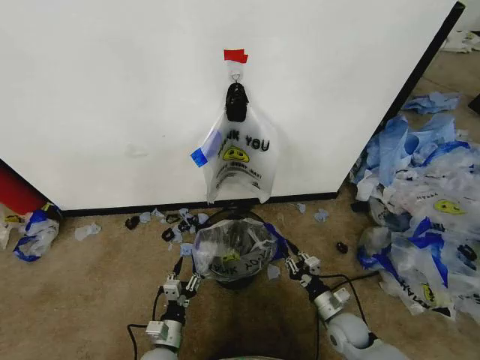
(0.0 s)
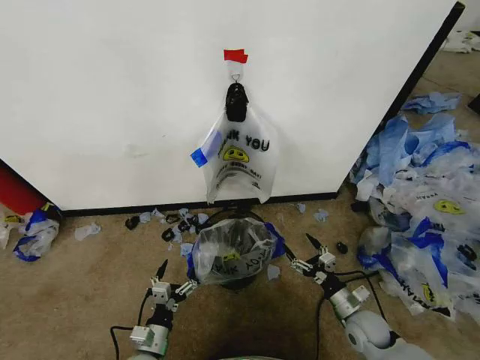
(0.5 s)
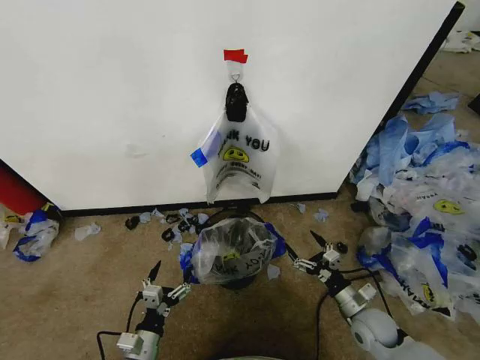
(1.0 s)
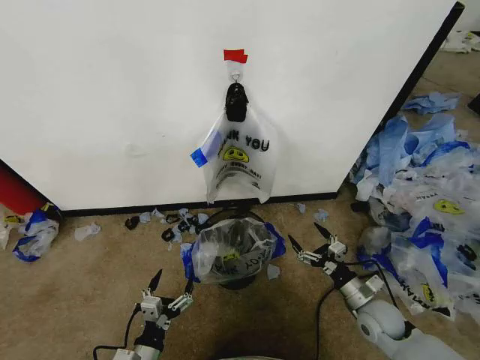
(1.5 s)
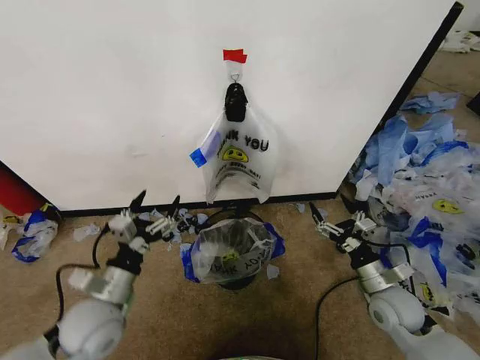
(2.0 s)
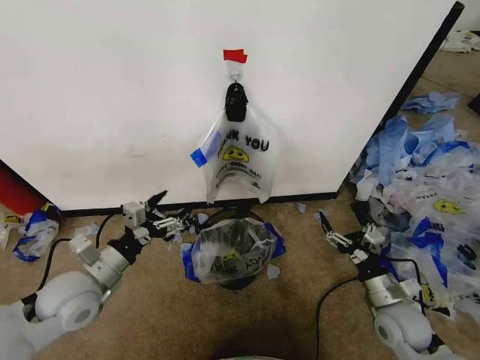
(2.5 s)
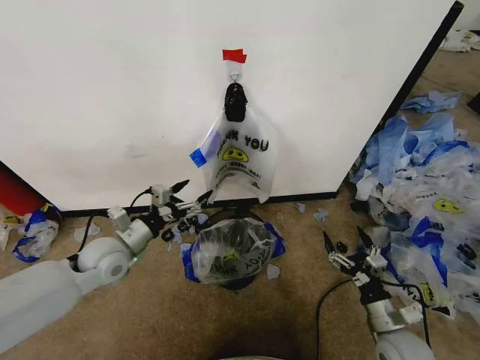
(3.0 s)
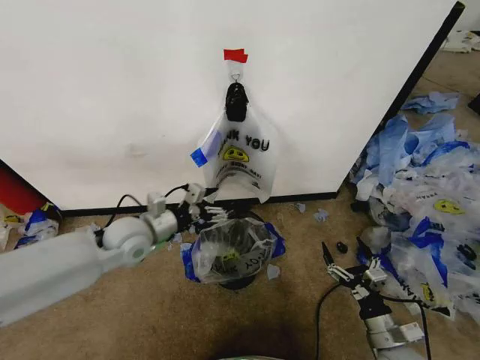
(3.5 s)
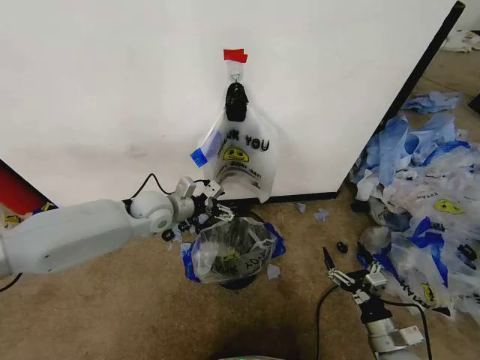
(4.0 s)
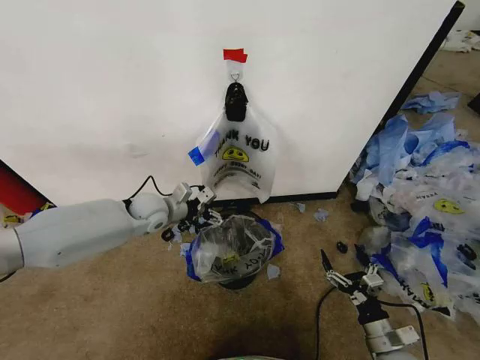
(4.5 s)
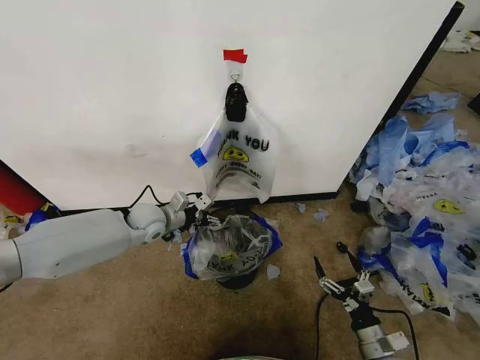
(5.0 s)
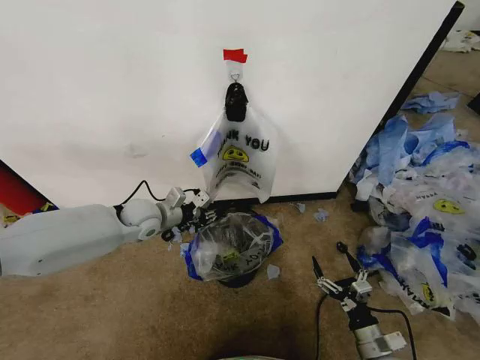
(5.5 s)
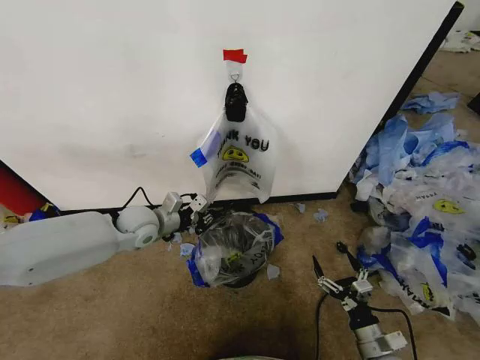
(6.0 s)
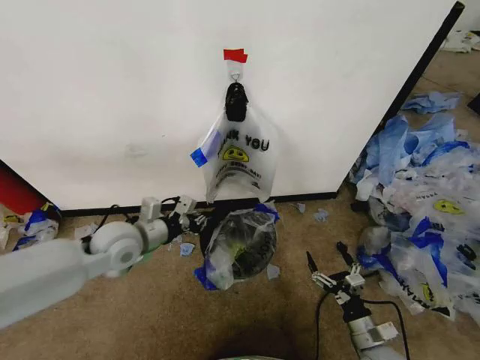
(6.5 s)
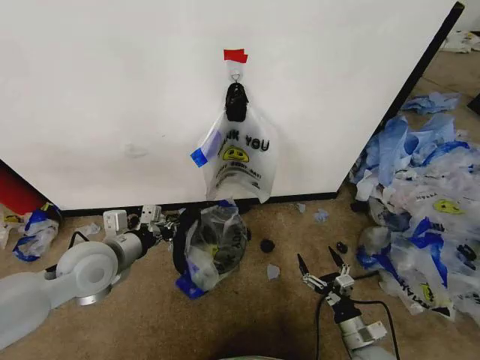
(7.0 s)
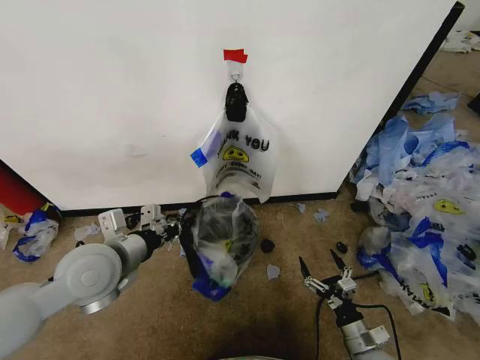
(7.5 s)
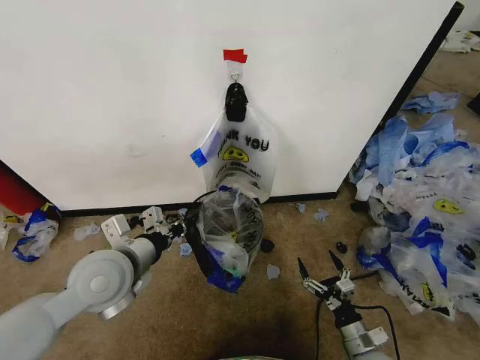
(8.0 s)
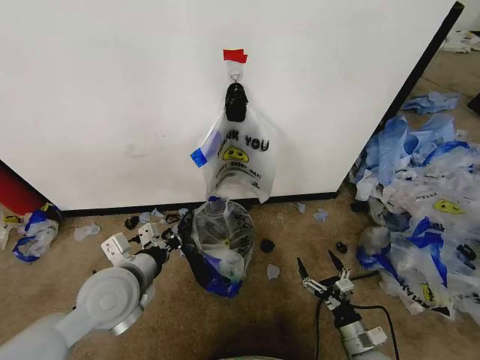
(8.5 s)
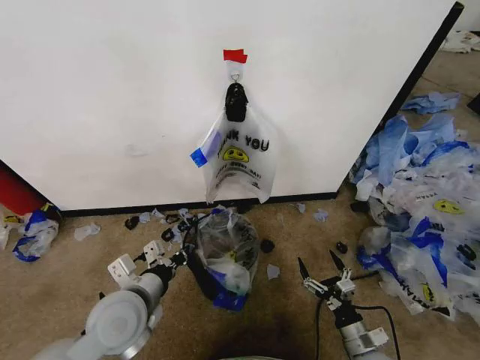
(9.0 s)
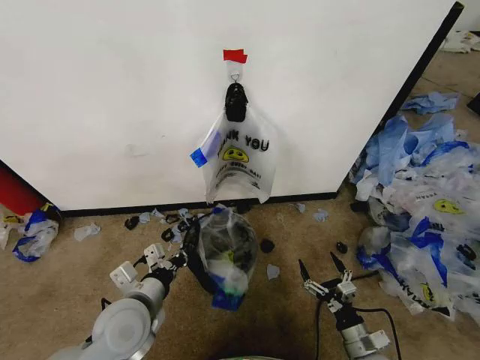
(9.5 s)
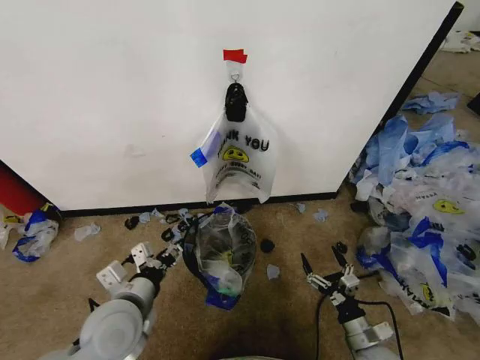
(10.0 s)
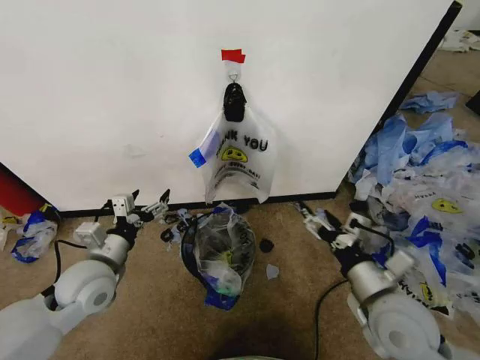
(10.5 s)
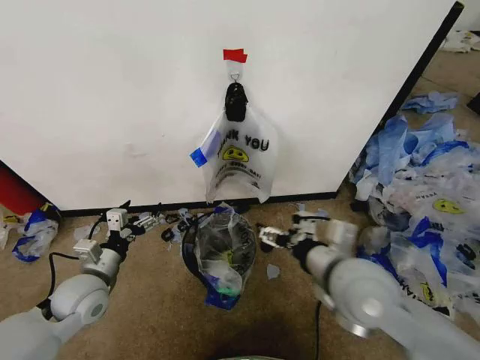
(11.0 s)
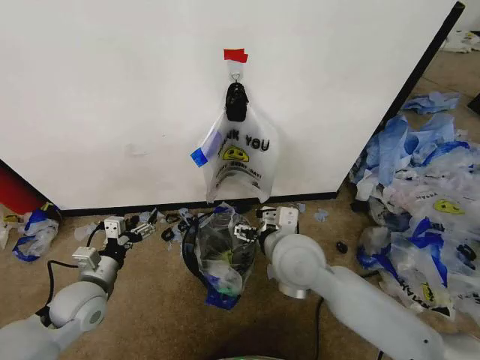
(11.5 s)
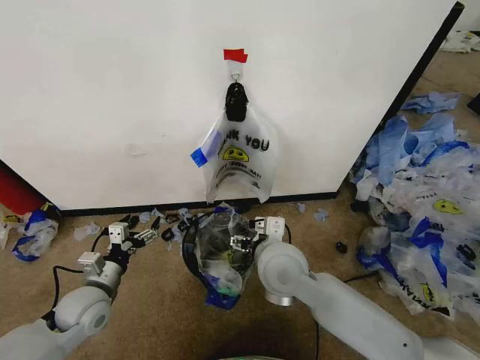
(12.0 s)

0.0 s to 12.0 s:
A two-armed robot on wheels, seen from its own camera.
Task of the whole recording: Pick up the garbage bag from the wall and place it over the trash bin.
0.0 to 2.0 s: The left gripper shifts some 20 cm upward, and opens. Meanwhile the right gripper heads upward, covering approximately 15 cm, and opens up.
2.0 to 4.0 s: The right gripper heads backward and downward, covering some 15 cm. Meanwhile the left gripper heads forward, covering about 25 cm.
4.0 to 6.0 s: The left gripper shifts by about 5 cm, and closes up.
6.0 to 8.0 s: The left gripper is displaced backward and upward by roughly 20 cm.
8.0 to 10.0 s: The left gripper goes some 10 cm downward and backward, and opens its fingers.
10.0 to 12.0 s: The left gripper is displaced to the left, downward and forward by about 15 cm, and opens; the right gripper moves upward, to the left and forward, approximately 35 cm.

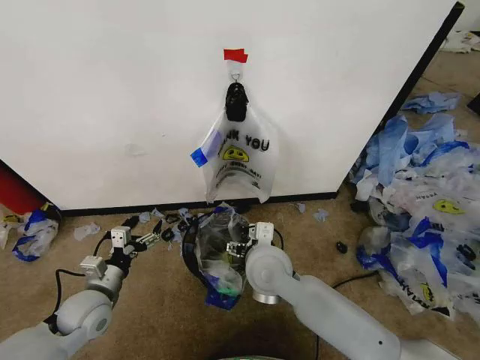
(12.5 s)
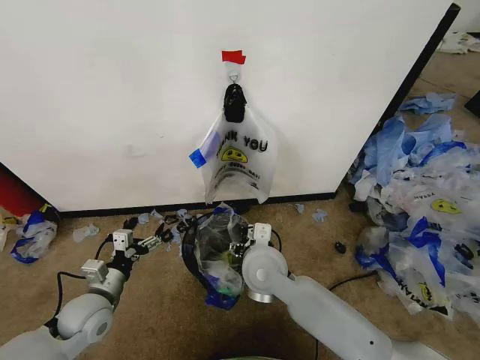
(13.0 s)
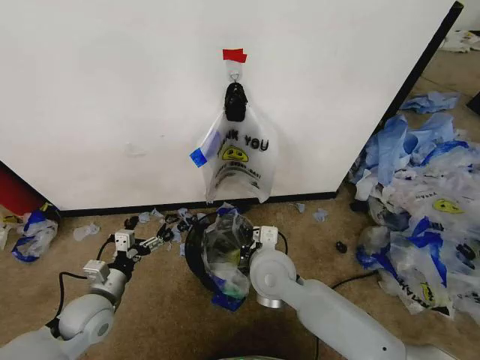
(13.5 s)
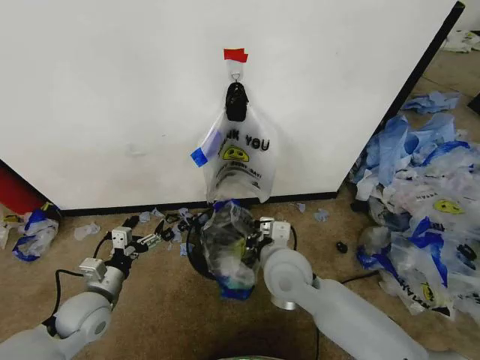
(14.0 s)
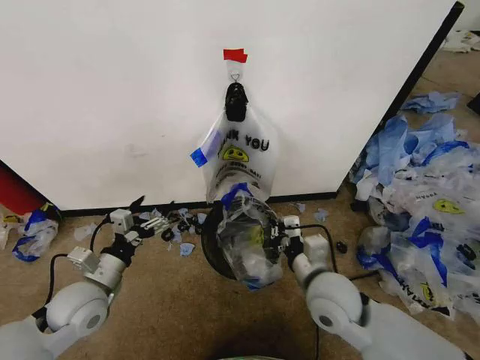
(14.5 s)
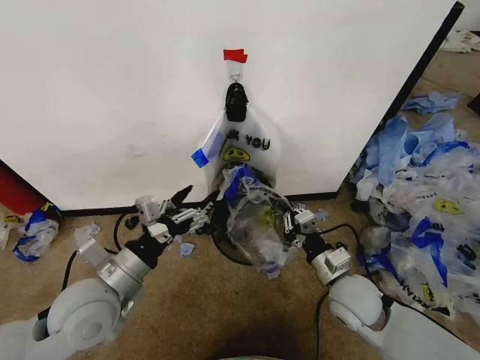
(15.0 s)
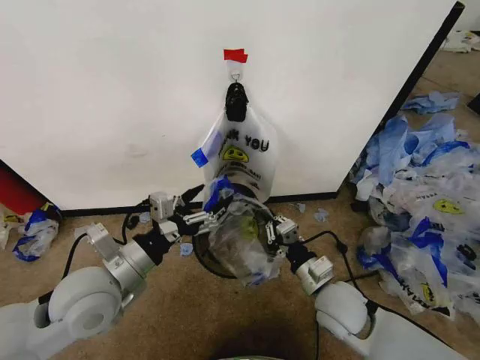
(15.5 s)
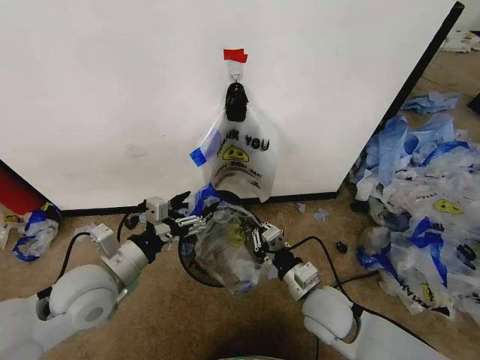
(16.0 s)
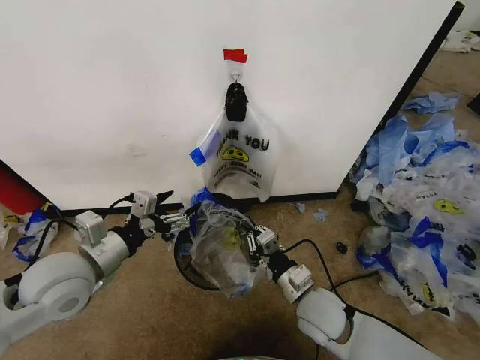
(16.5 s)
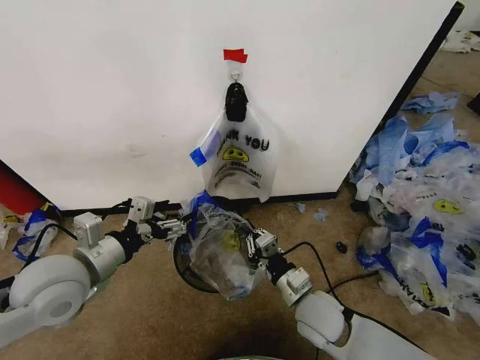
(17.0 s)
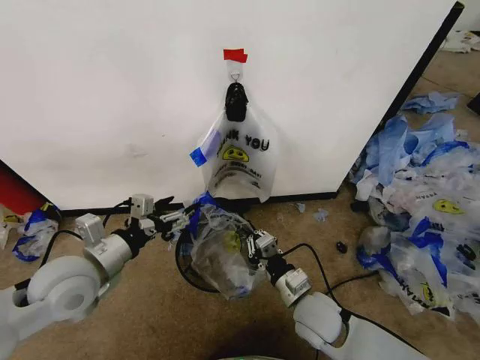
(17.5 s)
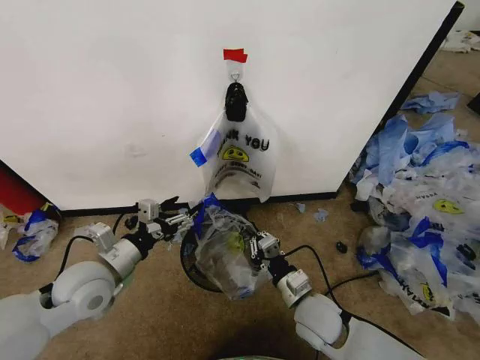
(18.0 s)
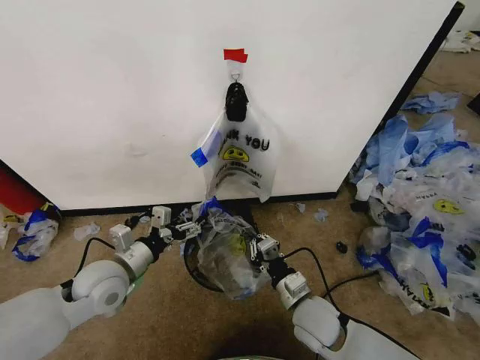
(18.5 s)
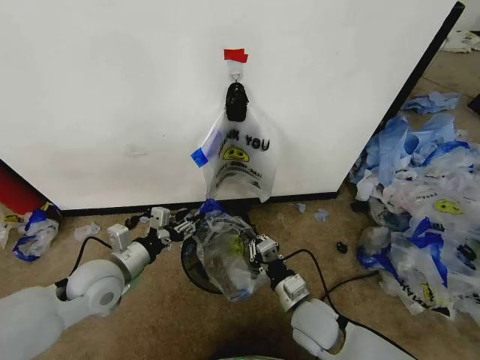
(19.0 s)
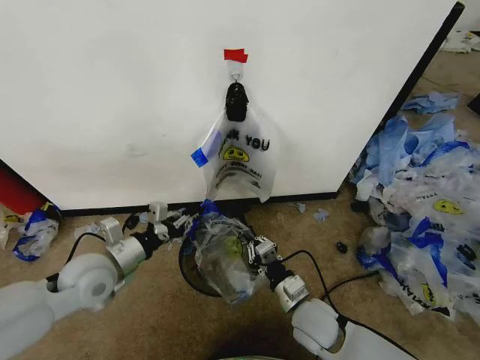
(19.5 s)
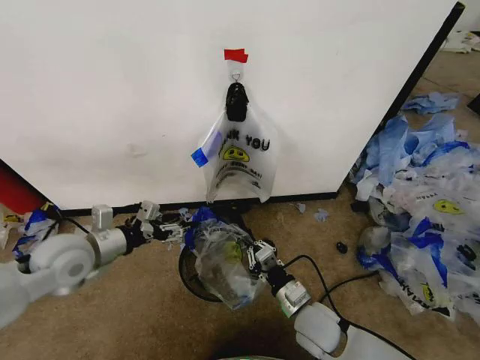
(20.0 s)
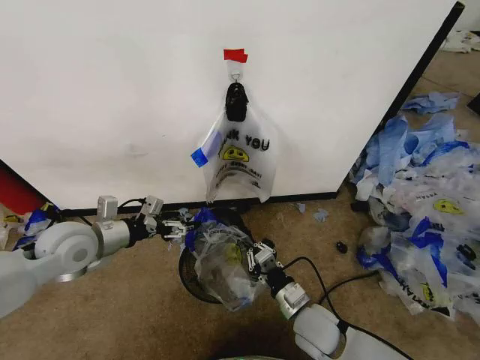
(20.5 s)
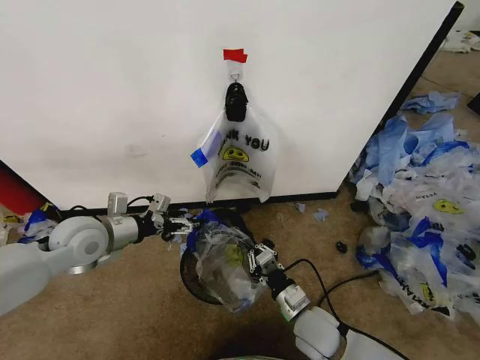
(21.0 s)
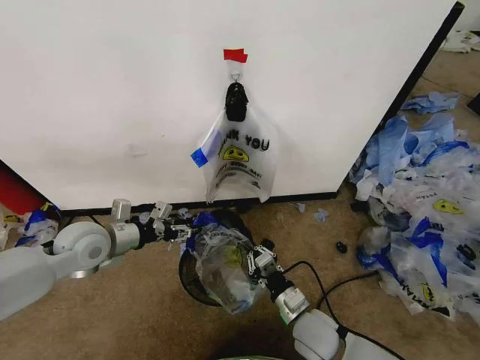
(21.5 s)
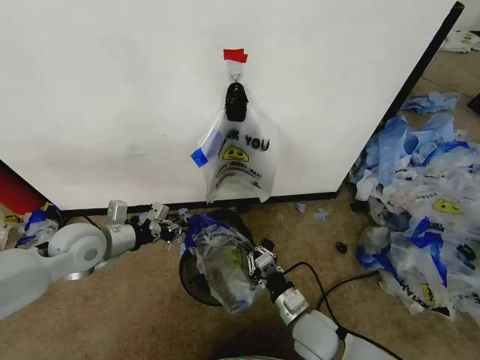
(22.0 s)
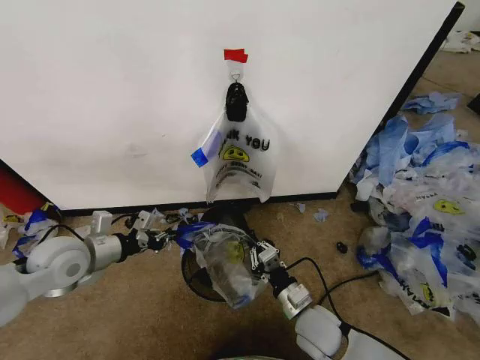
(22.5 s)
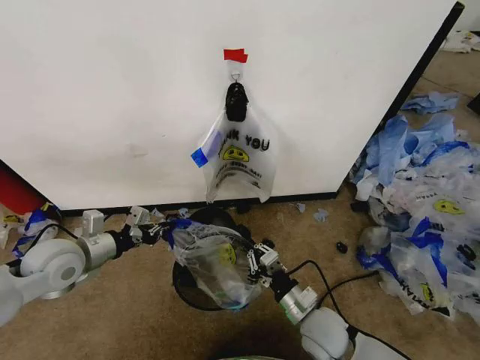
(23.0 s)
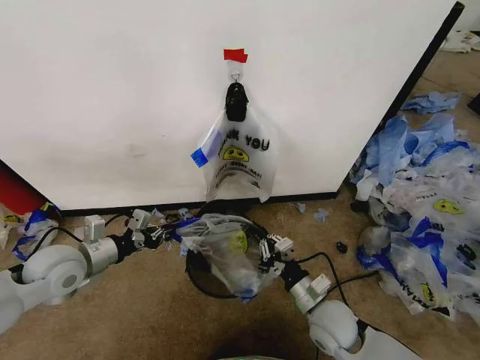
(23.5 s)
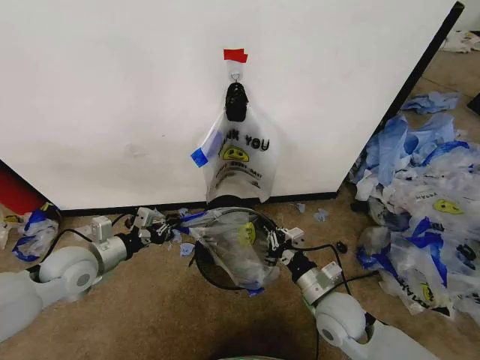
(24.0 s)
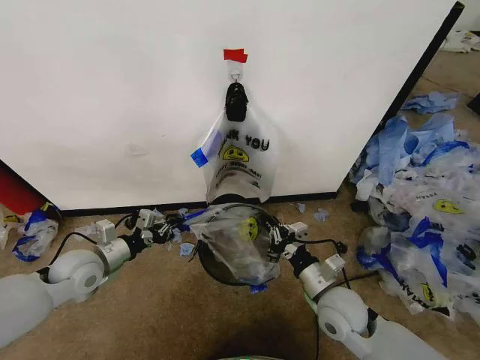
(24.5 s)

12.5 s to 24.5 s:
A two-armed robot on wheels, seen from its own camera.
Task of the whole recording: Pick up the garbage bag from the wall and place it over the trash bin.
12.5 to 14.5 s: The left gripper goes approximately 5 cm upward, while the right gripper shifts roughly 15 cm to the right and backward, and closes its fingers.
14.5 to 16.5 s: The right gripper is displaced downward by approximately 5 cm. Meanwhile the left gripper is displaced upward by approximately 10 cm.
16.5 to 18.5 s: The left gripper travels downward by roughly 10 cm.
18.5 to 20.5 s: The left gripper goes some 10 cm upward and to the left, and closes, then opens again.
20.5 to 22.5 s: The left gripper closes.
22.5 to 24.5 s: The right gripper goes about 5 cm upward. The left gripper moves downward, approximately 5 cm.

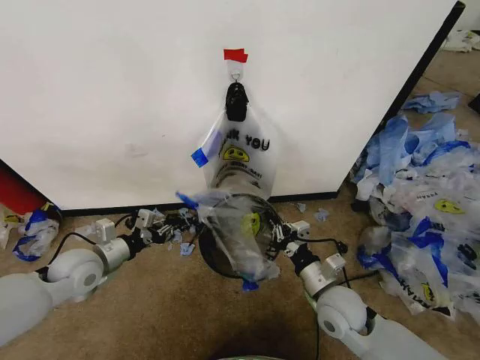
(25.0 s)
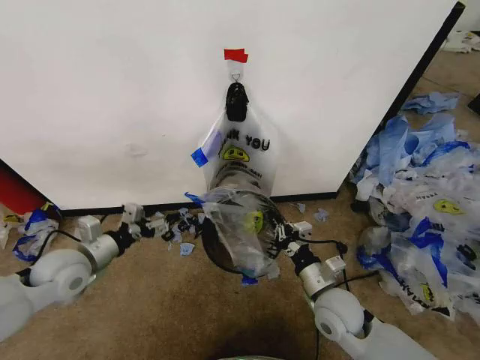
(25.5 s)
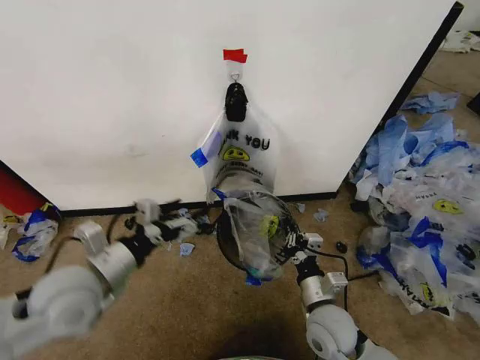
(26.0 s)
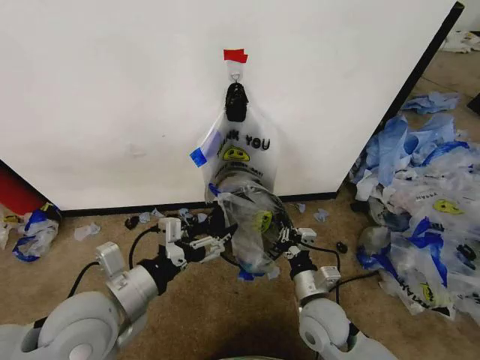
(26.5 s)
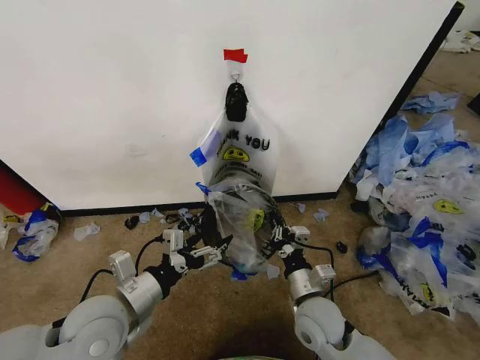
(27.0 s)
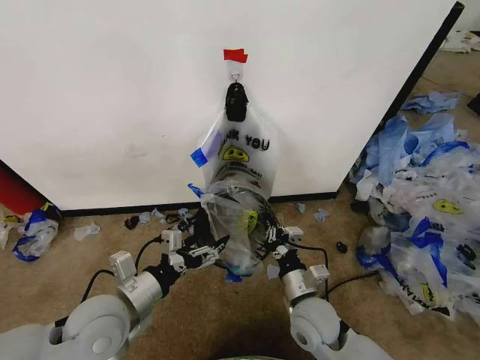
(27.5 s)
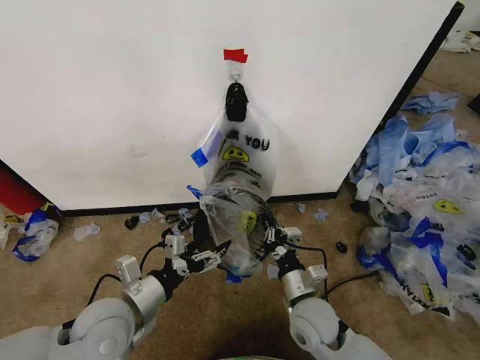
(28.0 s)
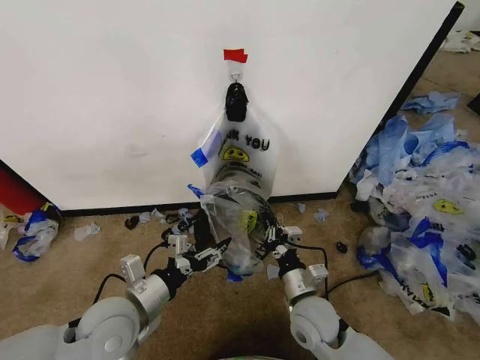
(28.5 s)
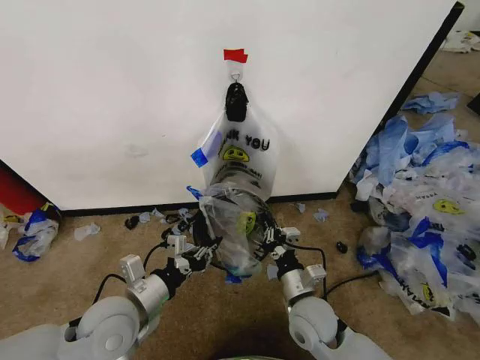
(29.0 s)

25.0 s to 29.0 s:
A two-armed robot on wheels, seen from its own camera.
Task of the whole recording: Pick up the garbage bag from the wall and place it over the trash bin.
25.0 to 27.0 s: The left gripper shifts approximately 20 cm backward, to the right and upward, and opens its fingers; the right gripper shifts approximately 5 cm to the left.
27.0 to 29.0 s: The left gripper closes its fingers.
